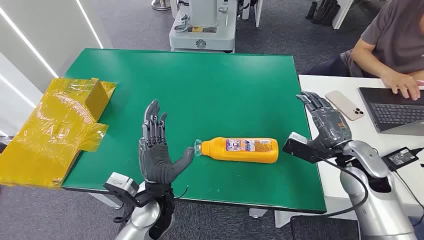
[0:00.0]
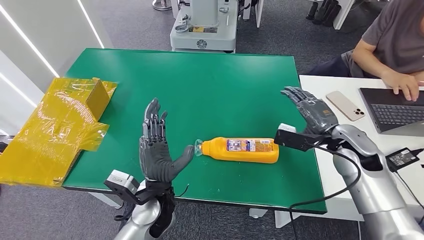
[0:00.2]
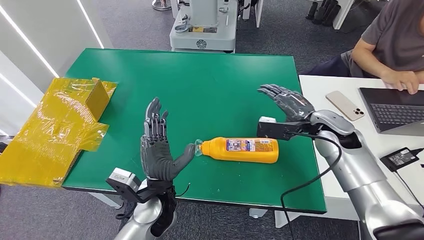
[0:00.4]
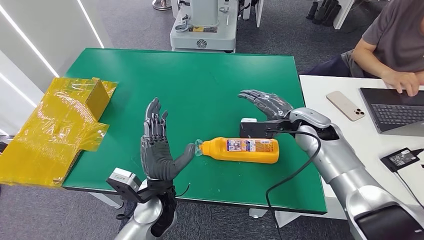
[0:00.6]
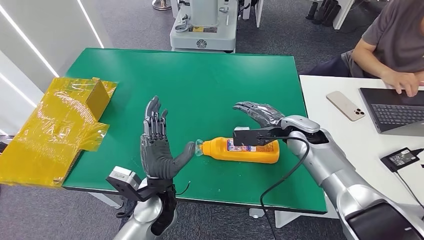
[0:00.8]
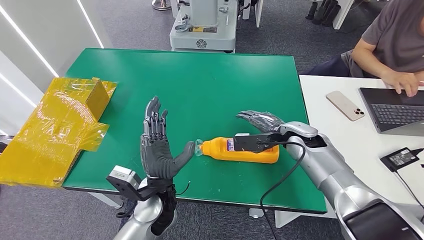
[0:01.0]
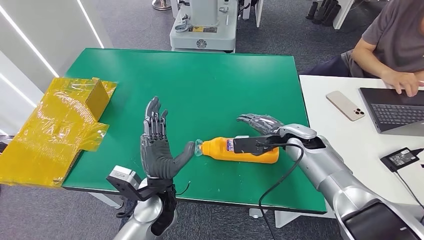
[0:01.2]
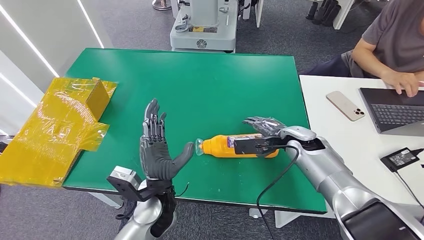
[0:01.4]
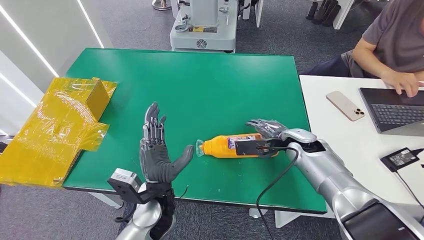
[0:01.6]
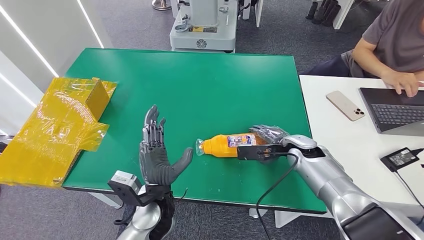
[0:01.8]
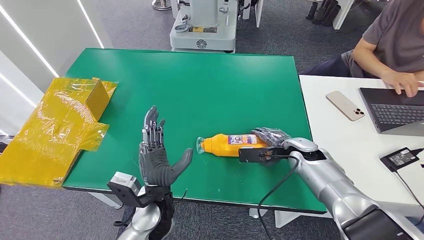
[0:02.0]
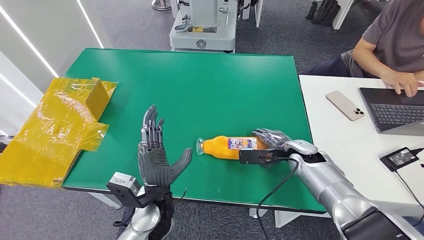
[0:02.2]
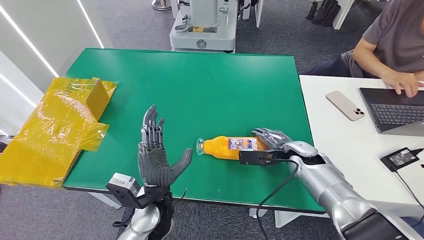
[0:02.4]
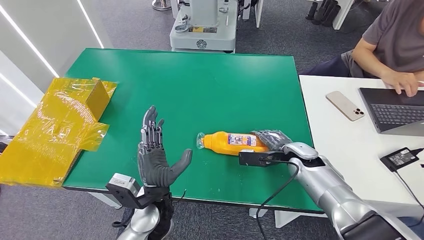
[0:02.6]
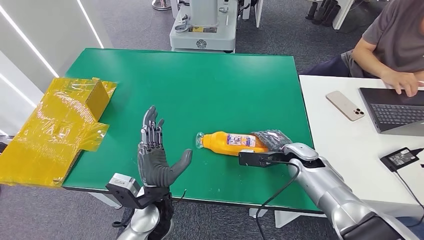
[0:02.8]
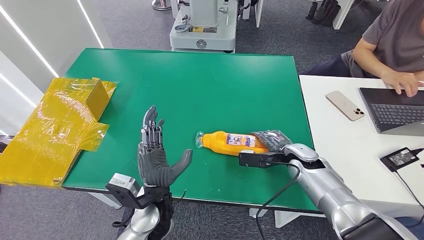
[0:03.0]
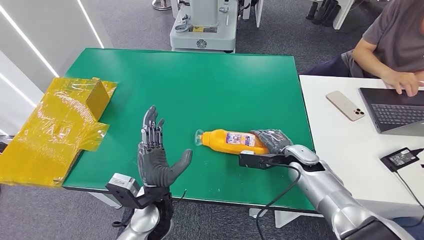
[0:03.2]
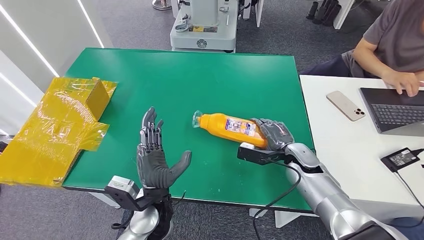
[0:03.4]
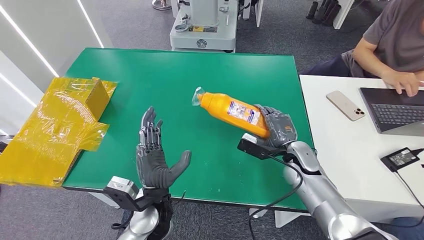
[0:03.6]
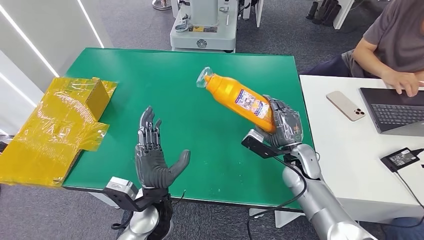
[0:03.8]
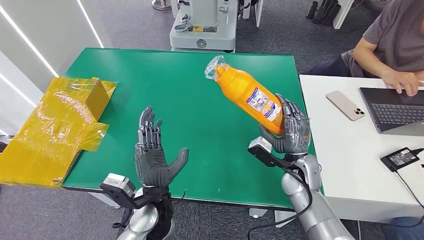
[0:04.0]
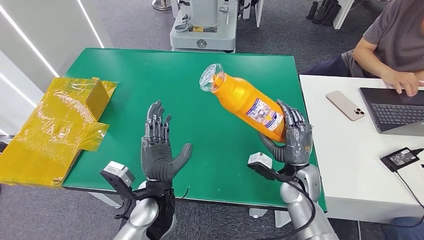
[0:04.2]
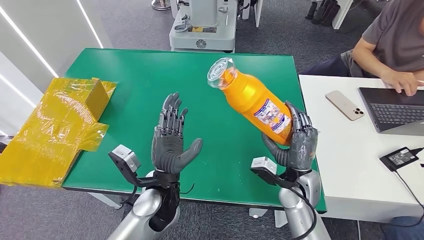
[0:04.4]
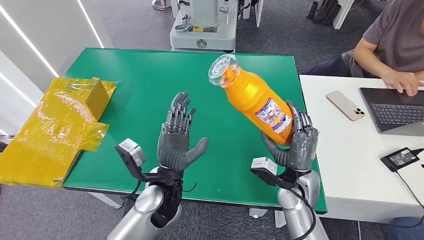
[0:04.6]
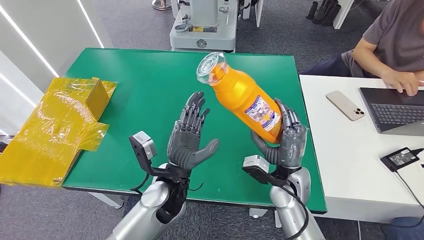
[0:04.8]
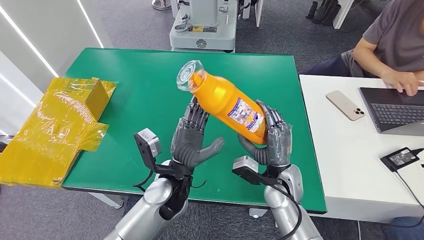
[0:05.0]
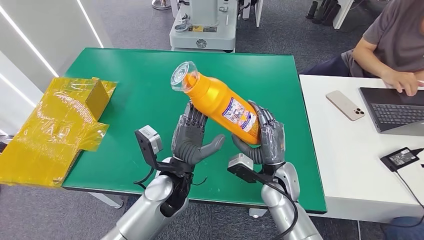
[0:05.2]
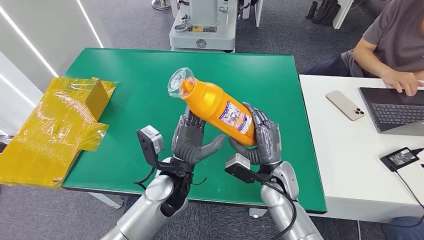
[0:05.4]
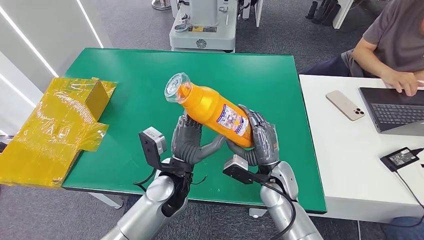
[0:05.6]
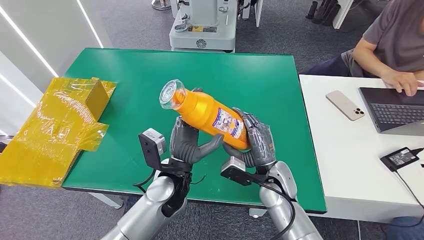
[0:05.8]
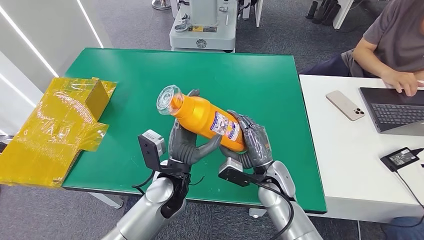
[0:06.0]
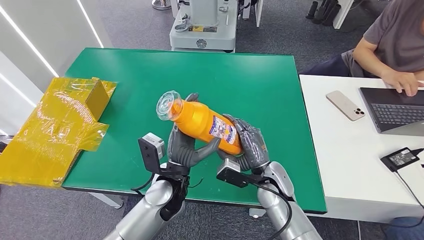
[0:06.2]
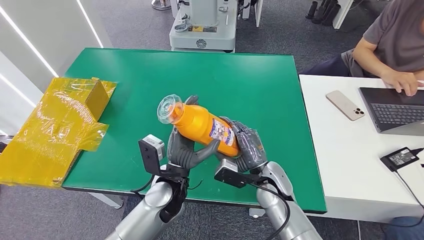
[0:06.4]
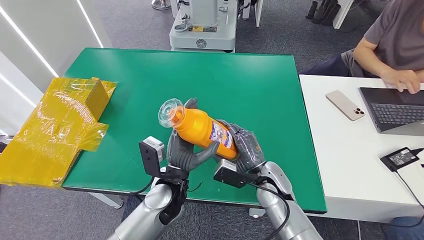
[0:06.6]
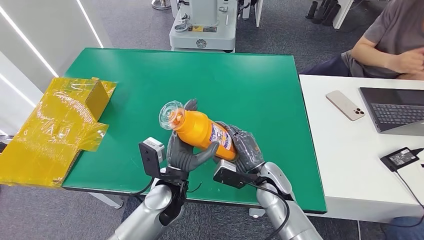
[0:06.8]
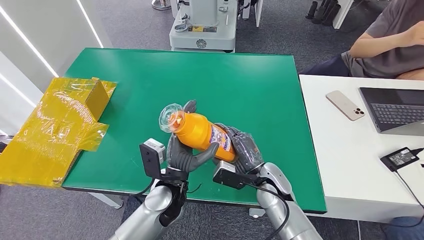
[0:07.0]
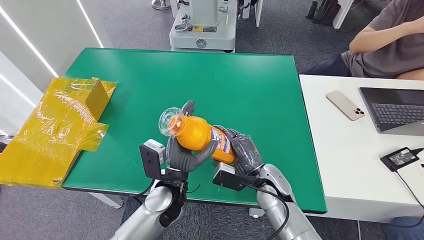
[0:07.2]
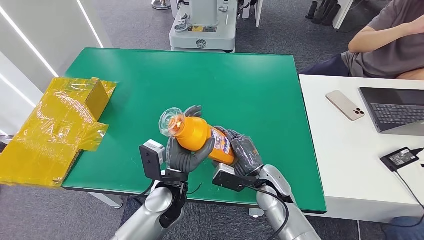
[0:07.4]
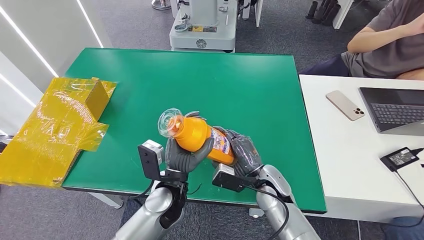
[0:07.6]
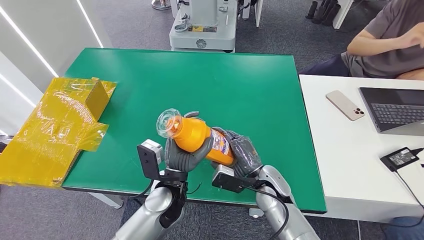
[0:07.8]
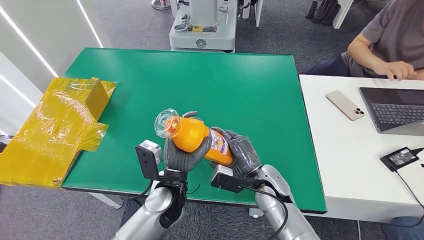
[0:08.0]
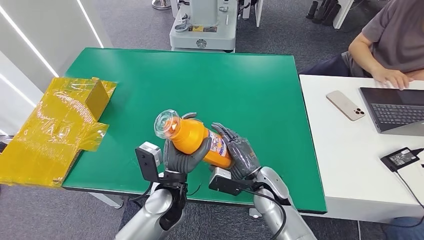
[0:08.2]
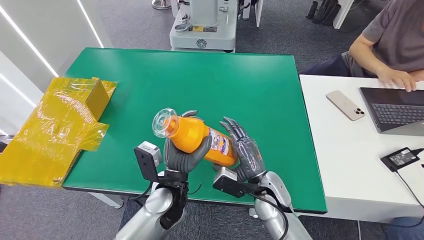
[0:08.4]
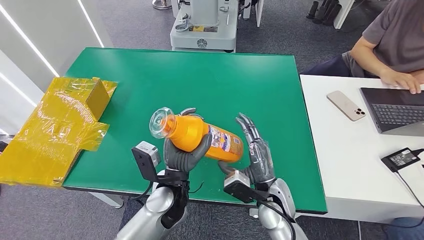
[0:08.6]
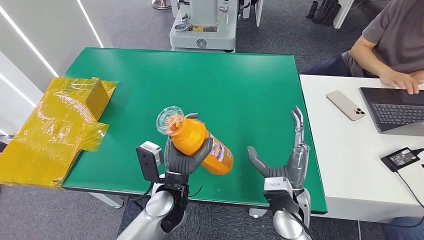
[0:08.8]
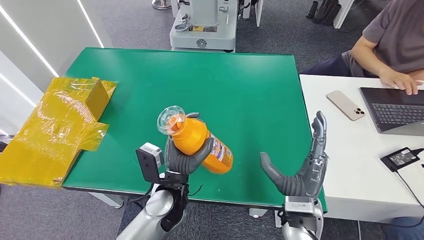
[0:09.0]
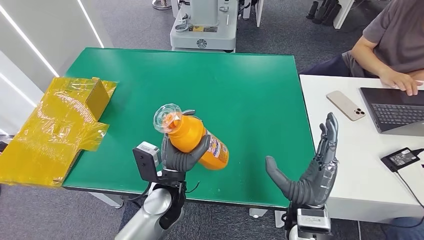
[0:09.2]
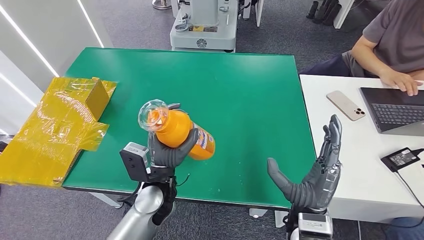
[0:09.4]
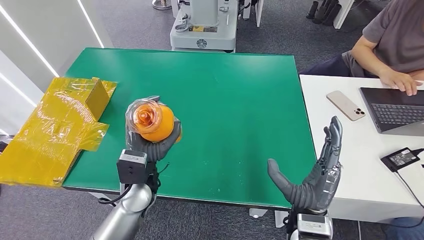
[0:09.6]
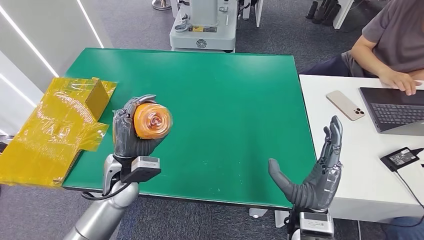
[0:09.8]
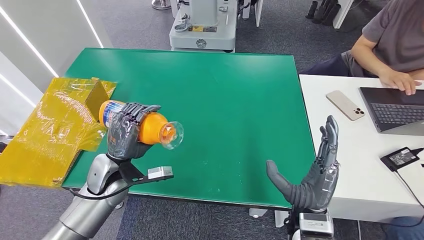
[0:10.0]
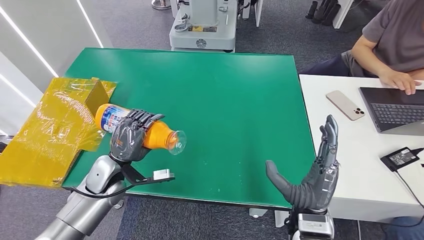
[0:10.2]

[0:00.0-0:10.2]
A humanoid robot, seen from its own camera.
Step, 0:00.0 to 0:03.4: Pick up the bottle from the table.
0:01.4 to 0:03.0: The right hand shifts approximately 5 cm downward.
0:03.0 to 0:04.4: The right hand shifts about 10 cm to the left and backward.
0:05.8 to 0:07.2: The hands move only a little.
0:07.2 to 0:08.8: The right hand travels backward by approximately 5 cm.
0:08.8 to 0:10.2: The left hand goes approximately 20 cm to the left. The right hand shifts by some 5 cm.

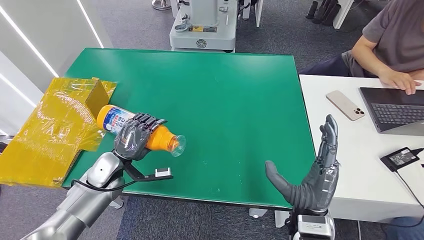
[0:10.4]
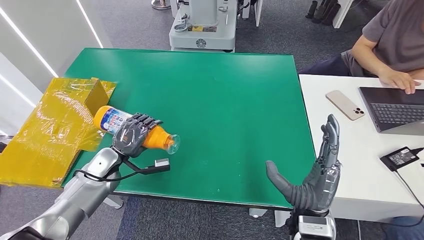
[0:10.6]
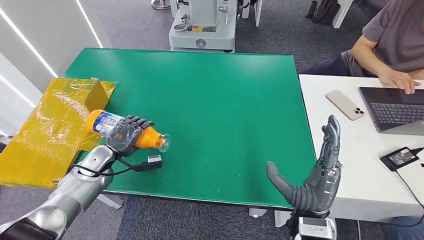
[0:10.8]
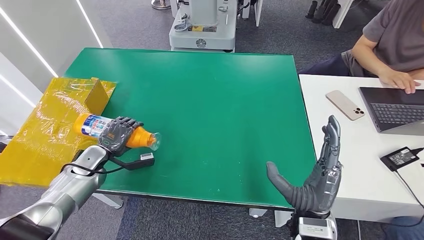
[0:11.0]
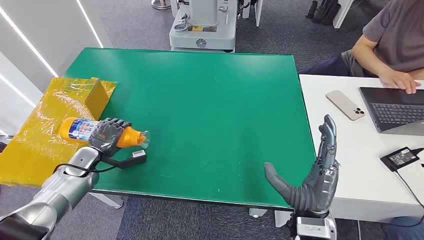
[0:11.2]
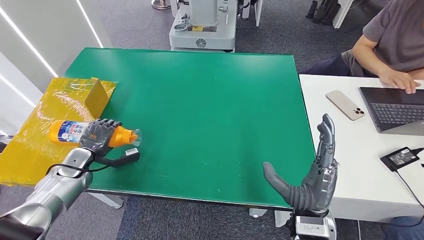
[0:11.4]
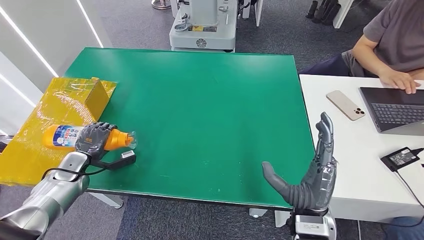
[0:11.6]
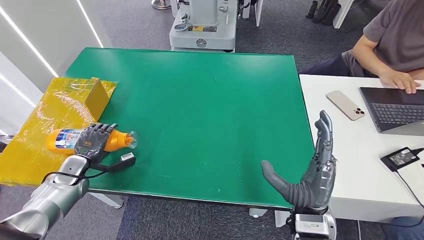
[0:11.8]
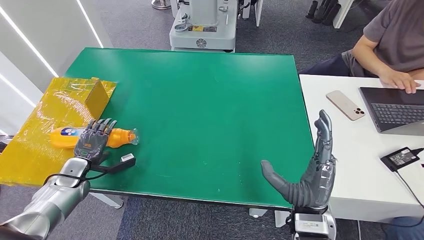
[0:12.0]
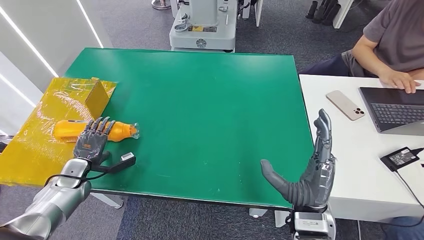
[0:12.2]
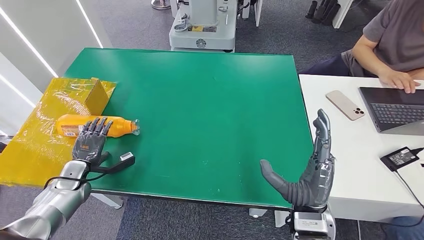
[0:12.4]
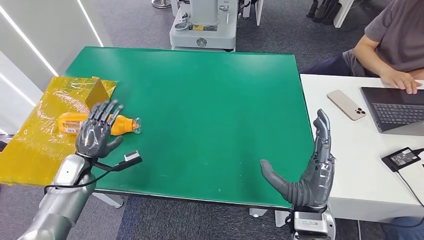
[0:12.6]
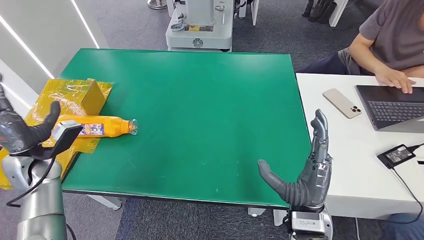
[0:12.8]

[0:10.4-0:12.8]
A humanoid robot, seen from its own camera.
Step, 0:10.4 to 0:12.8: Turn the bottle to the front side.
0:10.4 to 0:11.6: The left hand moves to the left, some 15 cm.
